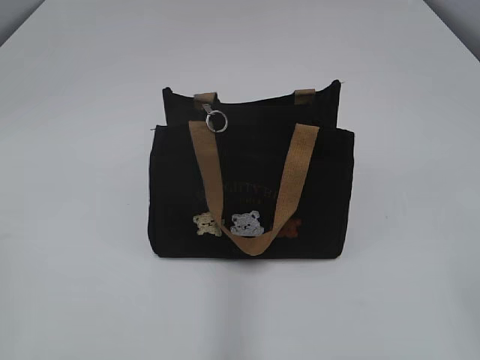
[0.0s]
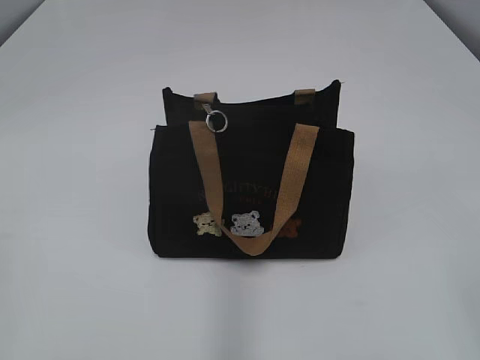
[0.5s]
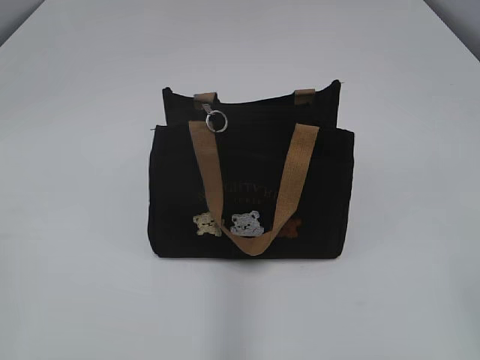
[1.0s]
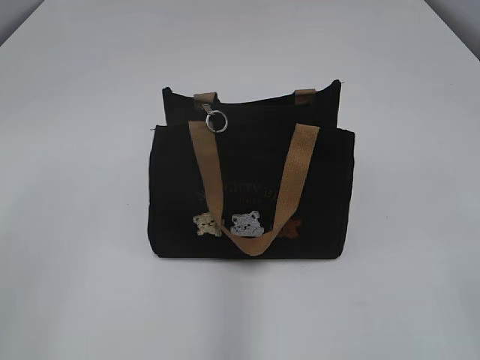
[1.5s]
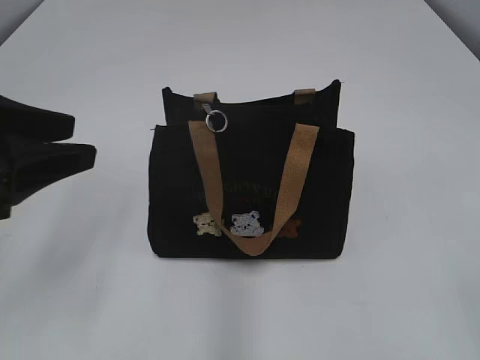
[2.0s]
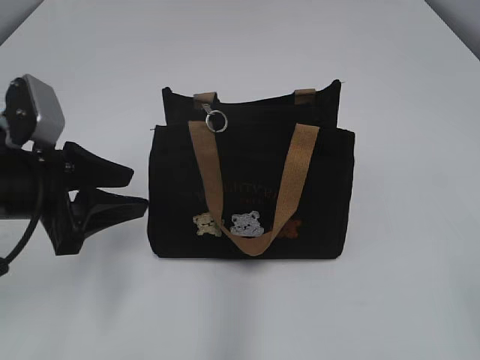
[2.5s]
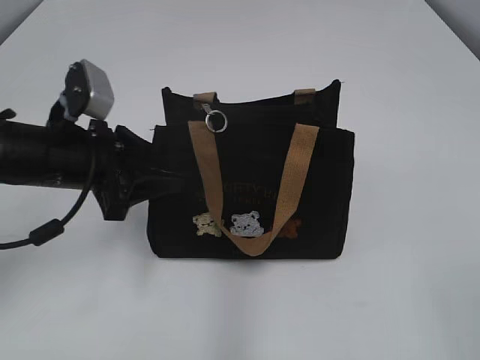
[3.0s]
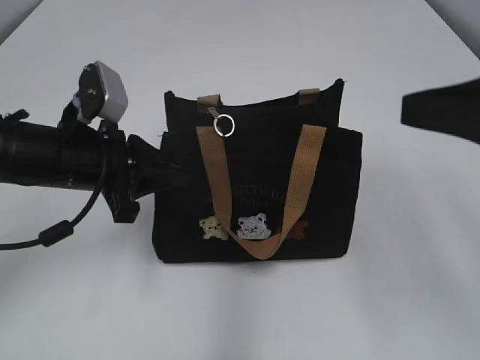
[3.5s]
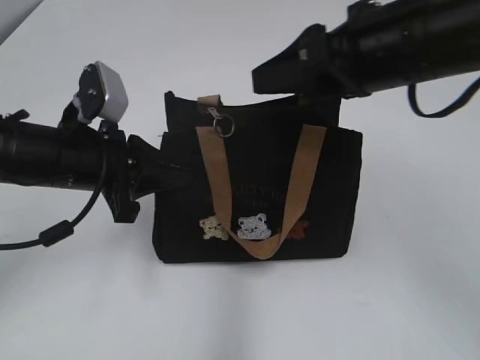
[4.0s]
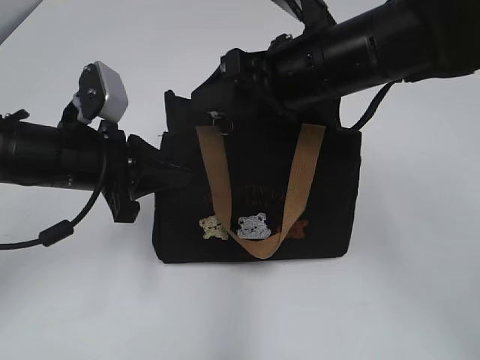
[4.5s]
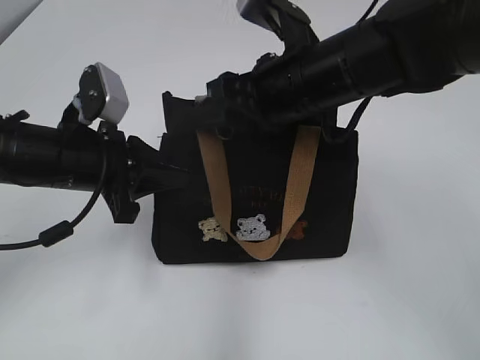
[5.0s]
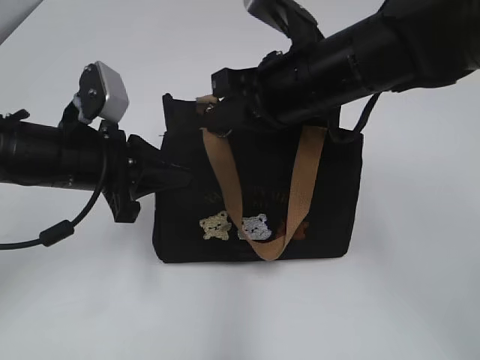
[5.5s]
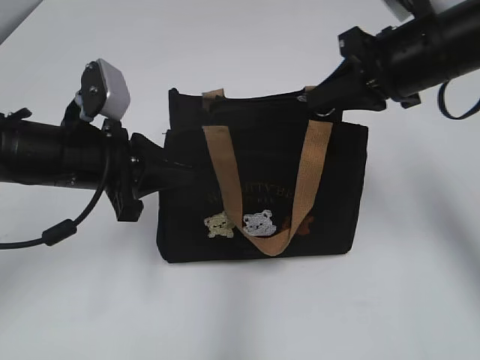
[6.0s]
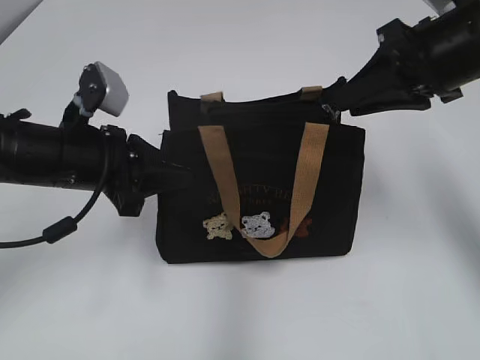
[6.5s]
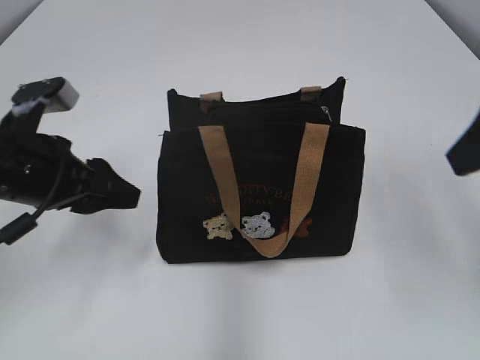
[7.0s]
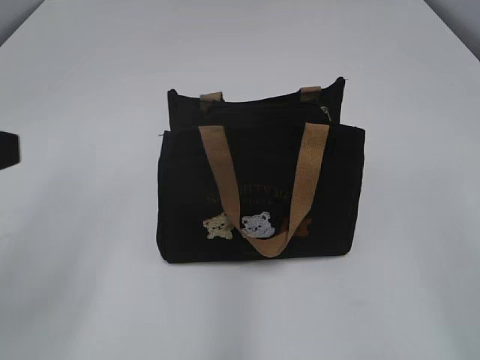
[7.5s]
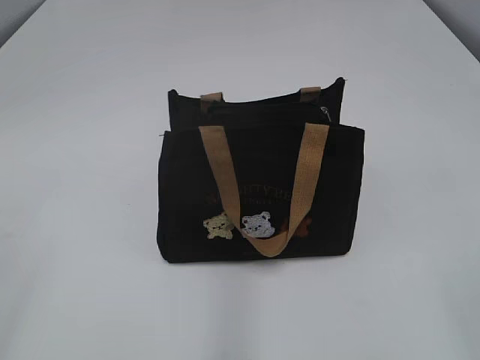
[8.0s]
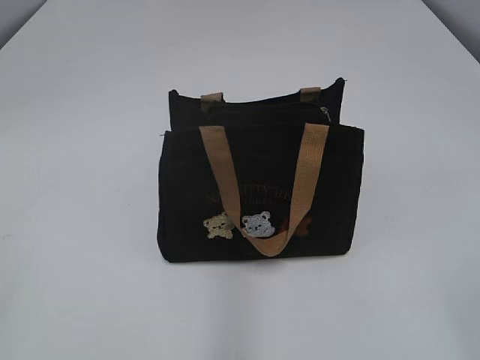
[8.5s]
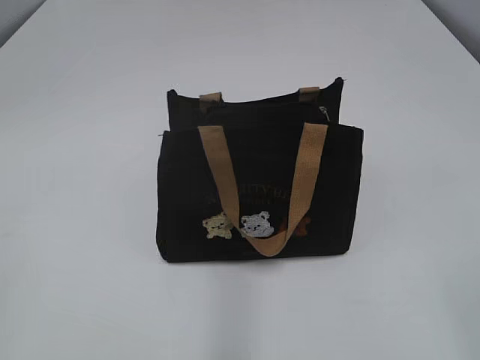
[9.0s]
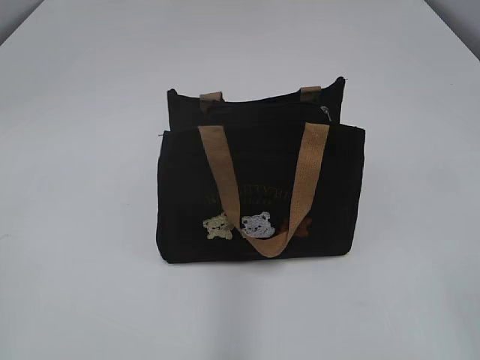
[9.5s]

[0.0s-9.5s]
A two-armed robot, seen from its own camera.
Step, 0.0s to 6.5s: Pull open the zipper with your right hand.
2.0s to 4.0s: The left gripper is displaced forward, downward and to the right by about 15 cm, and closes up; the right gripper moves forward and to the left, some 30 cm.
4.0s to 5.5s: The right gripper heads to the left and downward, covering roughly 10 cm, and closes up.
5.5s to 7.5s: The right gripper is displaced backward and to the right by some 30 cm, and opens; the left gripper heads backward, upward and to the left, covering some 20 cm, and opens.
7.5s to 9.5s: The left gripper goes approximately 15 cm backward and to the left.
